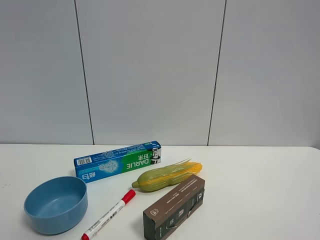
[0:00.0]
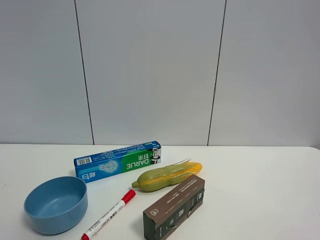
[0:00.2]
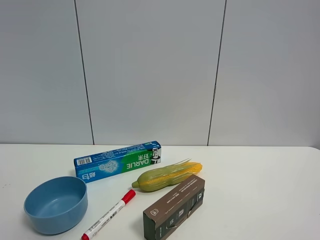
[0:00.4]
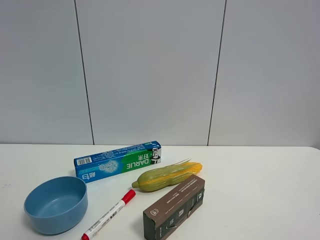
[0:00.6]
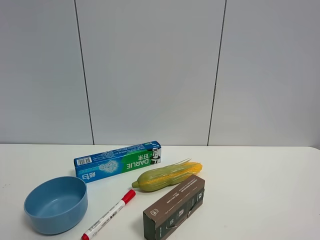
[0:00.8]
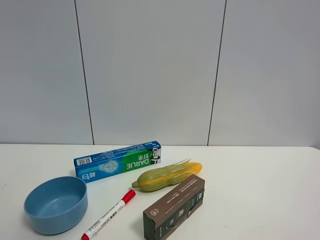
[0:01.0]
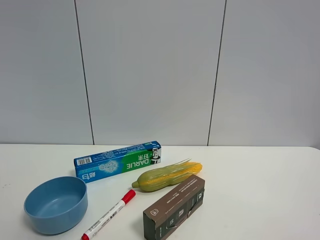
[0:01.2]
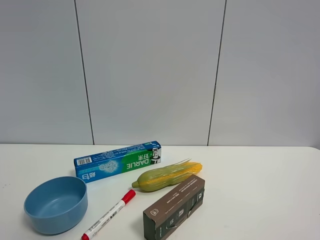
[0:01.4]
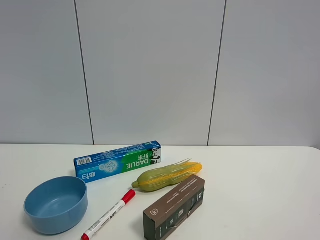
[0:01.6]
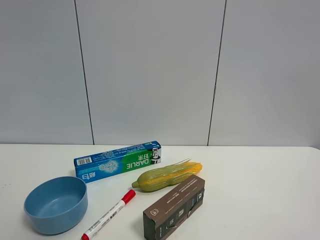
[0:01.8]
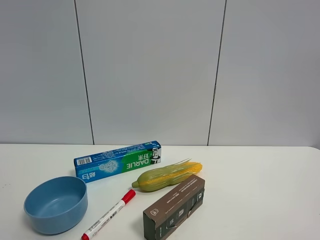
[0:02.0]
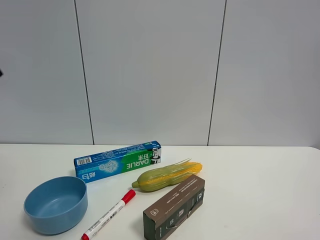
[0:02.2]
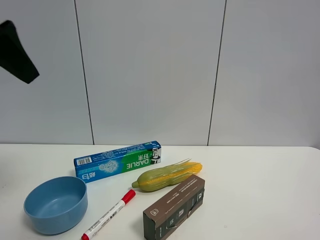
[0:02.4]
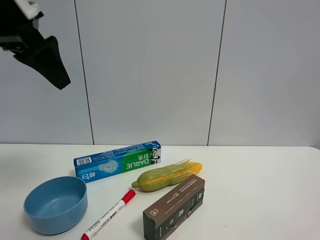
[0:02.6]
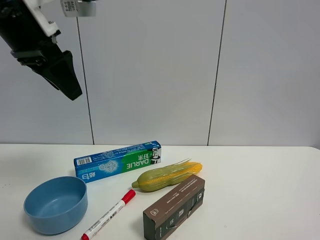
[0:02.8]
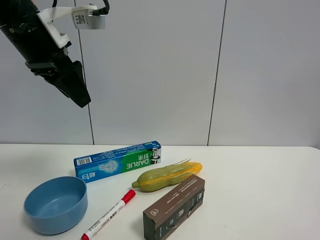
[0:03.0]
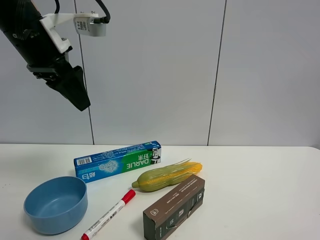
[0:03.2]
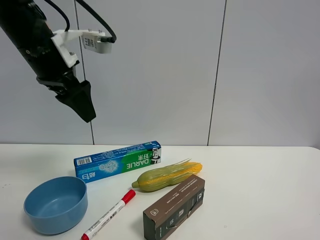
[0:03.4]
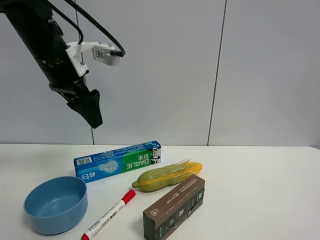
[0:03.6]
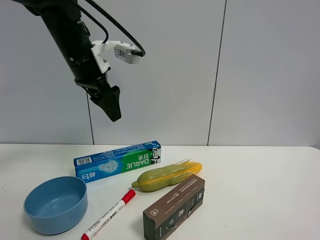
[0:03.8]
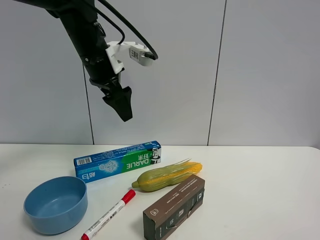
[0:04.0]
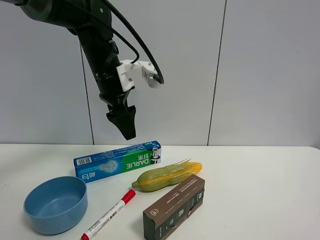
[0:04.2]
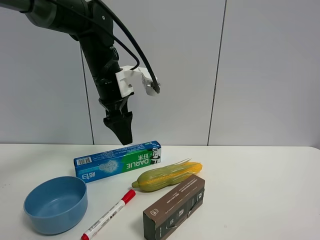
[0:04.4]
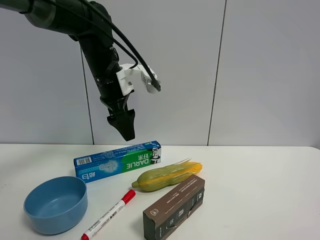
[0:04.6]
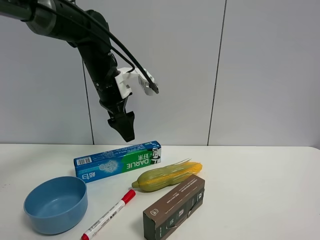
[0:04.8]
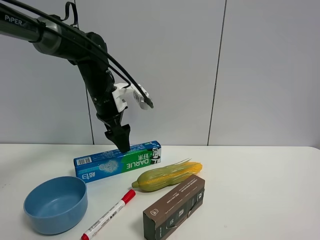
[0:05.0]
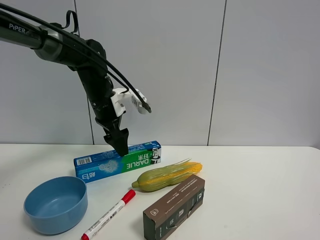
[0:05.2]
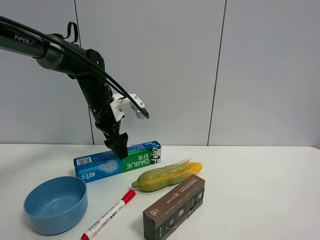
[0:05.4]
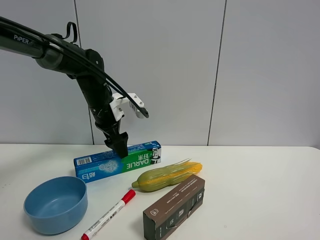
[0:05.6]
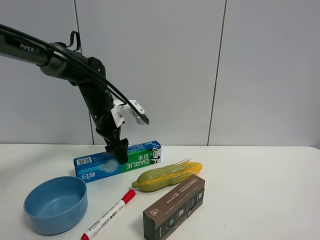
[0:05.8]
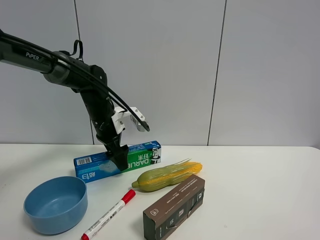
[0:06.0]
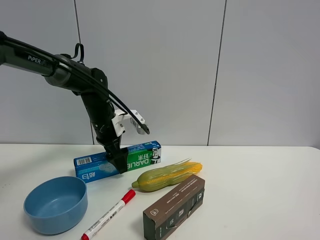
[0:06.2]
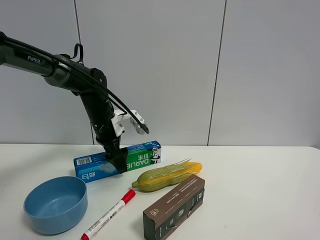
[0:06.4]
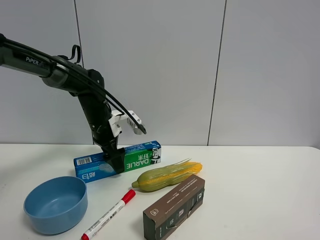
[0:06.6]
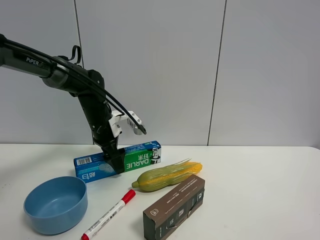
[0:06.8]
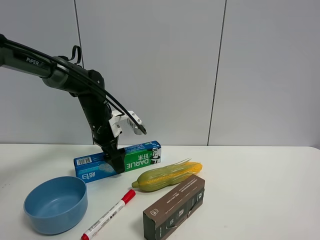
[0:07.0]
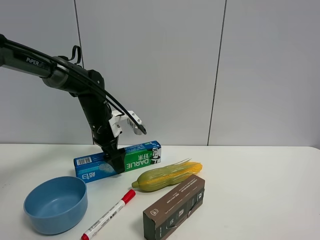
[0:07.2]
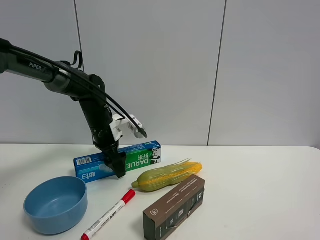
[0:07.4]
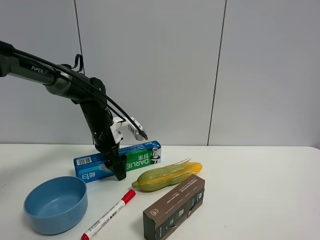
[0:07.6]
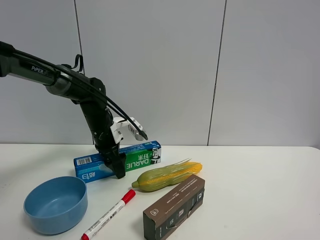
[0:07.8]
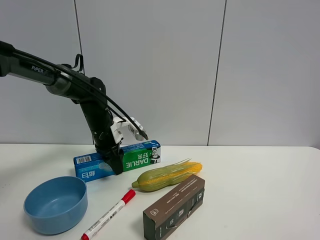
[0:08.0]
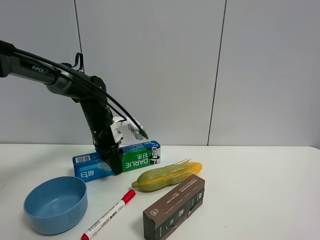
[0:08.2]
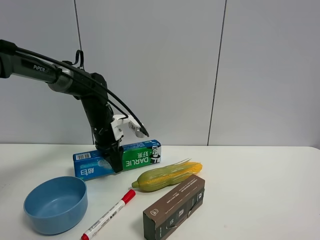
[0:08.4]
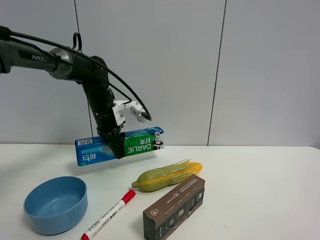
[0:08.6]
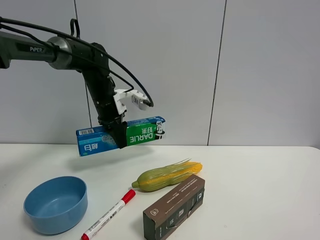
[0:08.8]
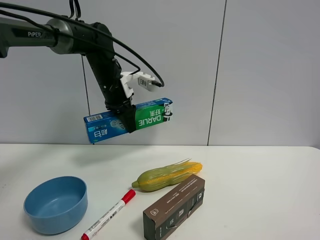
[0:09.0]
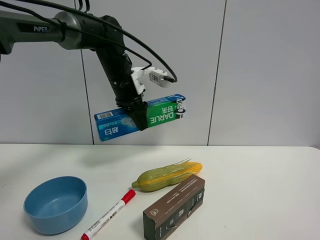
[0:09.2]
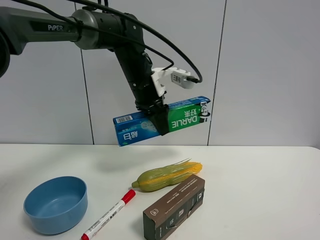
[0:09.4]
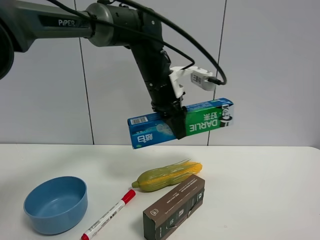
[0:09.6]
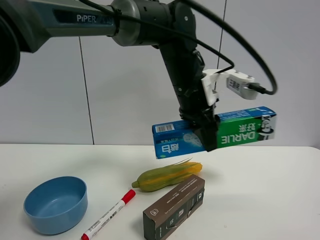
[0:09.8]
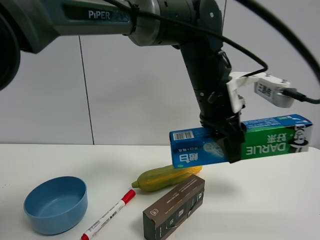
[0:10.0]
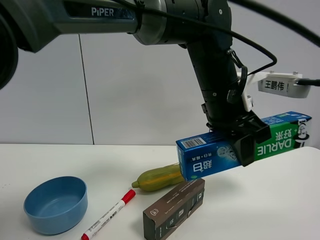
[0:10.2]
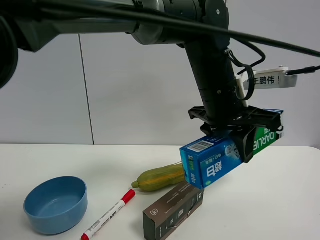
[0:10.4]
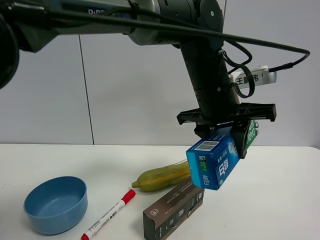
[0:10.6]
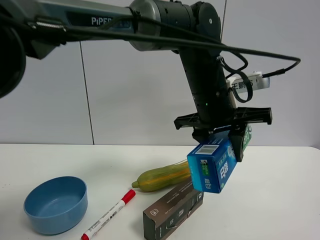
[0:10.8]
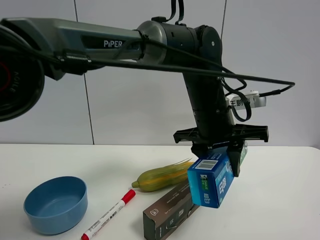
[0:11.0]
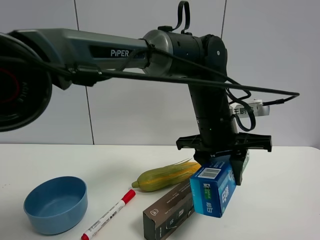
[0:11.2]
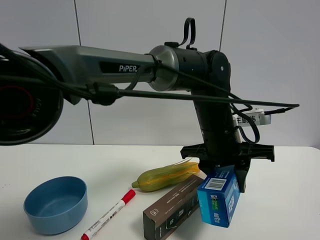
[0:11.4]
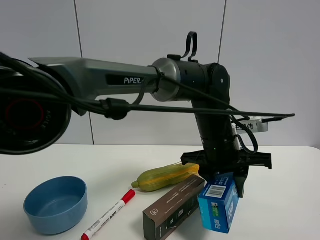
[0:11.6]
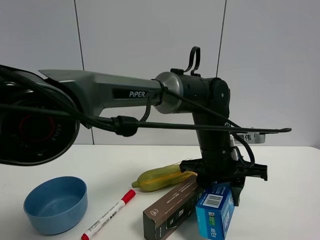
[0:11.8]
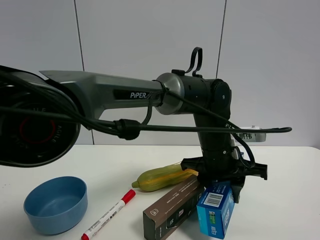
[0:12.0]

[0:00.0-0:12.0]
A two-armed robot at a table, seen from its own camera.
Task of the whole recording: the gripper move the object.
Step, 0:00.0 to 0:08.0: Grasp the toothpaste with the left gripper.
0:01.6 to 0:03.0: The left gripper travels forward by about 30 cm.
0:03.0 to 0:04.4: The left gripper shifts approximately 15 cm forward, to the right and downward, and opens up.
0:04.4 to 0:06.0: The left gripper heads downward and forward, covering roughly 10 cm.
0:06.0 to 0:07.6: The grippers move only a little.
0:07.6 to 0:09.0: The left gripper moves upward, roughly 10 cm, and closes its fingers.
0:09.0 to 0:10.4: The left gripper shifts approximately 25 cm to the right and backward.
0:10.4 to 0:12.0: The left gripper is displaced downward by some 10 cm.

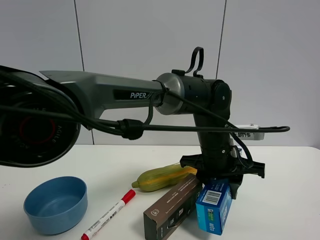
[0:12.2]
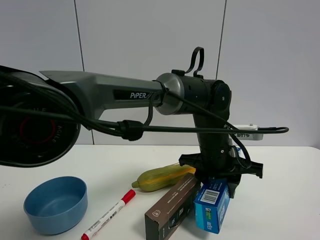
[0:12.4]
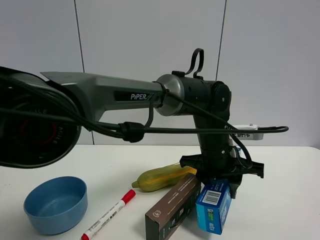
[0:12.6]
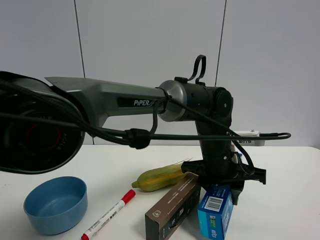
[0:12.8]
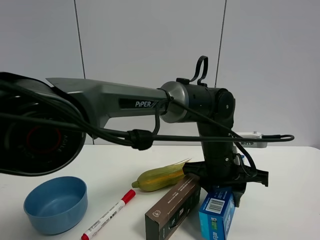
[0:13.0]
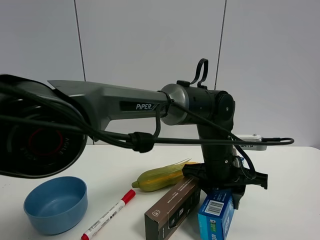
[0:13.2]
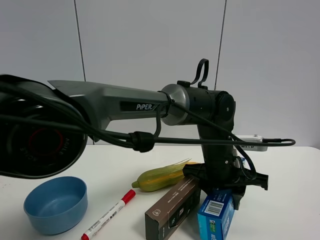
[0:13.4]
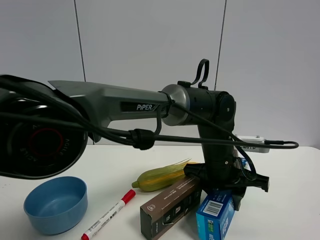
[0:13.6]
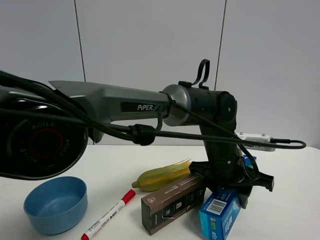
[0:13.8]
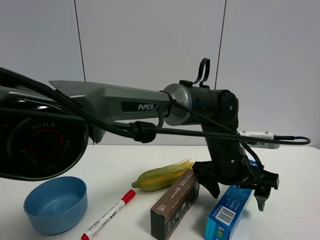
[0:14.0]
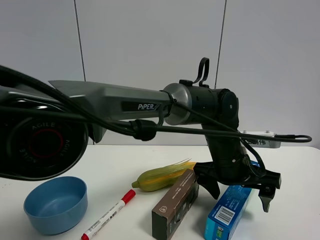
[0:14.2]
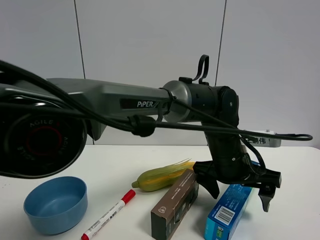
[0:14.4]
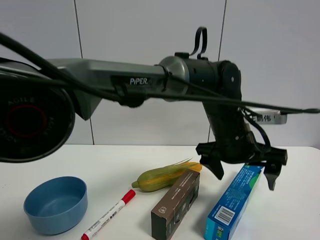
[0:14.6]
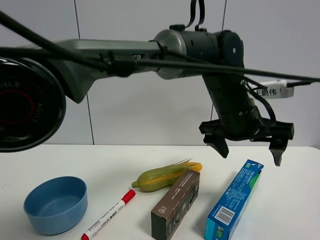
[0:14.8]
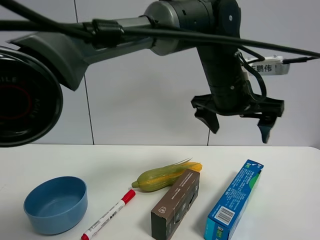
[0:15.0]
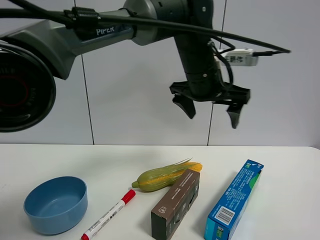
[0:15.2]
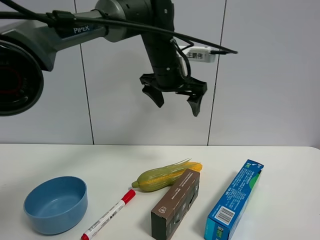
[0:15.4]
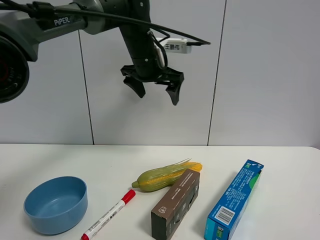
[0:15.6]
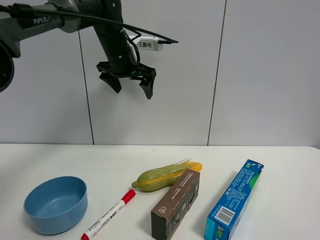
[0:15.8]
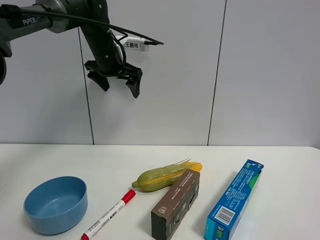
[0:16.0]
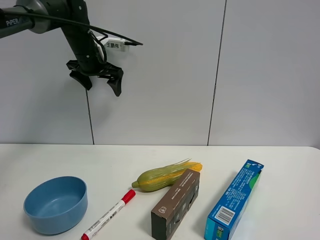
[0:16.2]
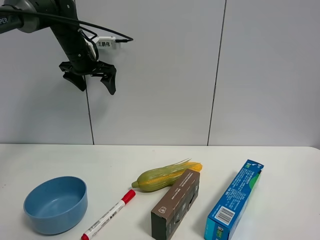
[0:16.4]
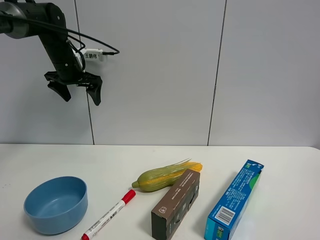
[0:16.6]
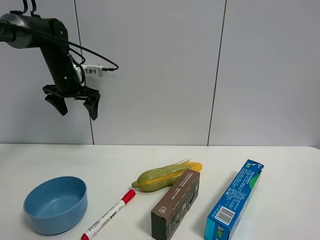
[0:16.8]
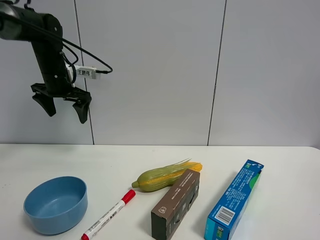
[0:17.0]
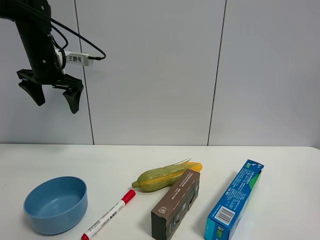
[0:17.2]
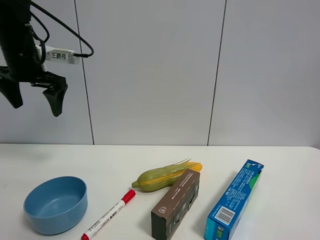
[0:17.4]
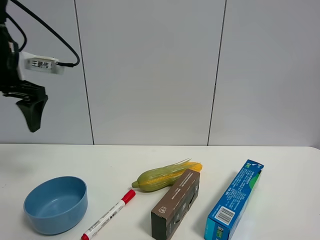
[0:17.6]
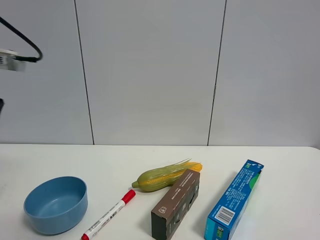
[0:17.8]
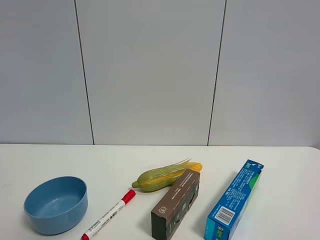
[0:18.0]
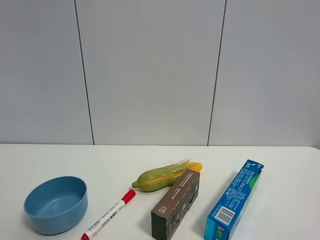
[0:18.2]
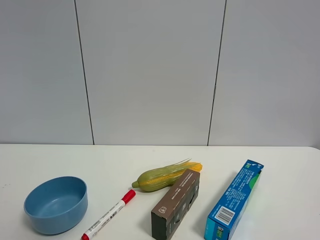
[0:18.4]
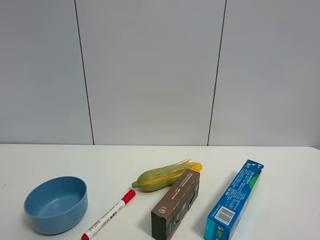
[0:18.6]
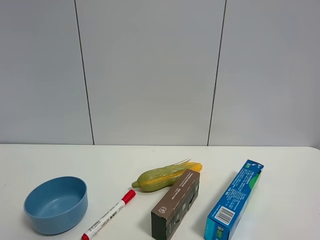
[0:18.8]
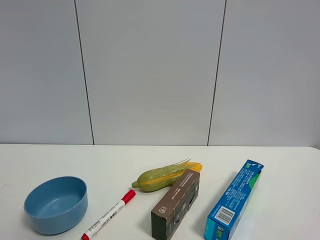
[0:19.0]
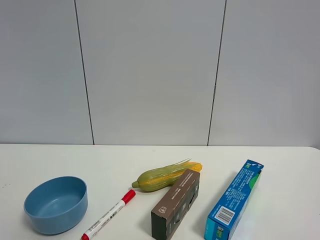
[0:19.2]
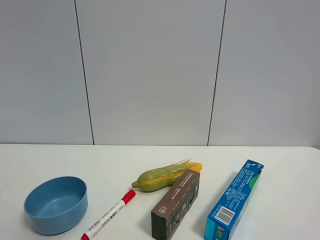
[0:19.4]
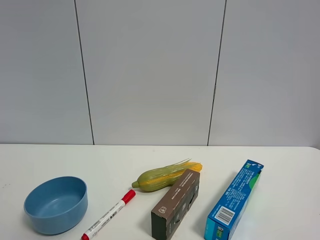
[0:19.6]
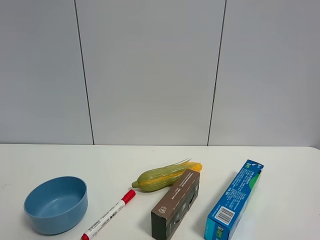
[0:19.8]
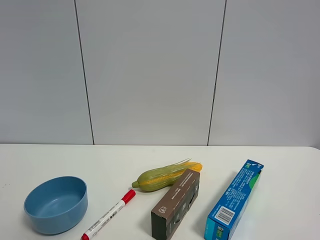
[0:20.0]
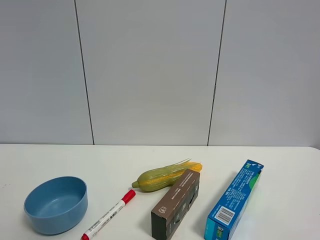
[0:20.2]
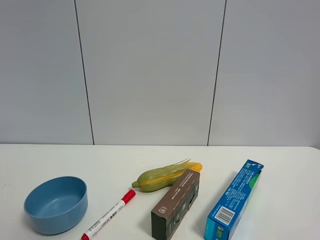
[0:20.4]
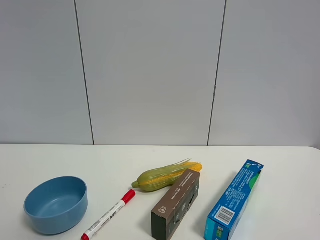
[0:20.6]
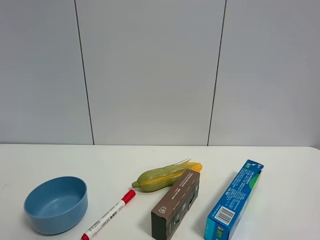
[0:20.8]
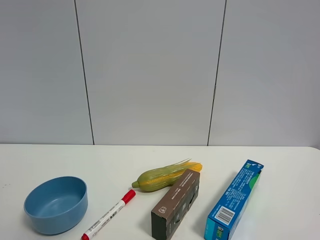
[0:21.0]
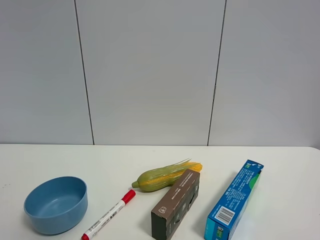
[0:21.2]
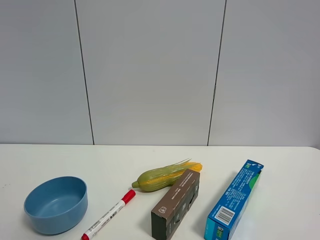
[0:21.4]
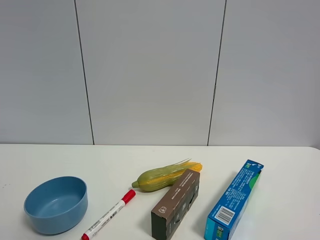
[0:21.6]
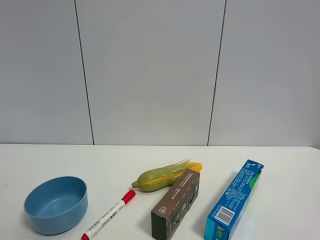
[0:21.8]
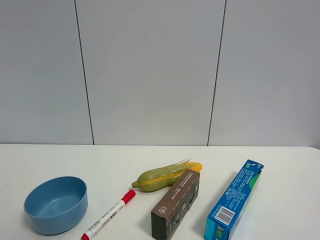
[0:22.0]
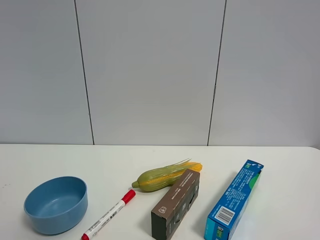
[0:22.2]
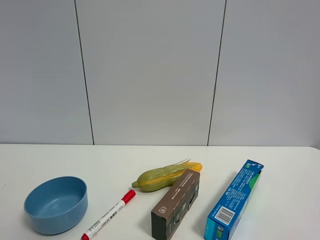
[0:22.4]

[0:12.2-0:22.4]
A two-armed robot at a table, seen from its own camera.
Task of the whole recording: the gripper move the object.
Step, 0:12.2 to 0:14.2: Place the toothpaste on the table with the left gripper.
0:13.6 to 0:15.2: The left gripper heads upward, covering some 15 cm, and opens its fingers.
0:15.2 to 0:16.6: The left gripper heads to the left and forward, covering about 35 cm.
0:16.6 to 0:18.0: The left gripper moves backward, about 35 cm.
